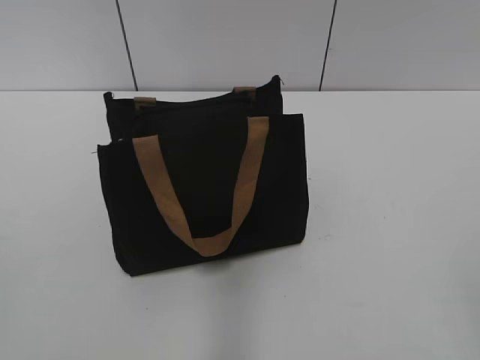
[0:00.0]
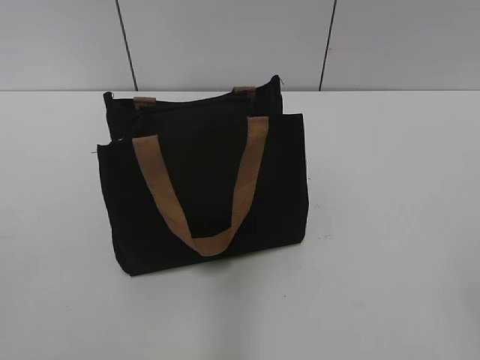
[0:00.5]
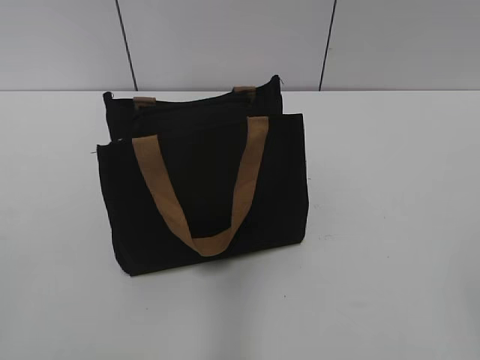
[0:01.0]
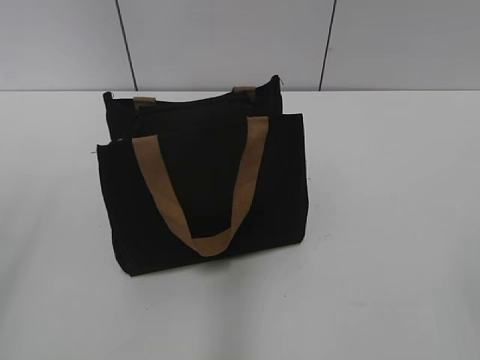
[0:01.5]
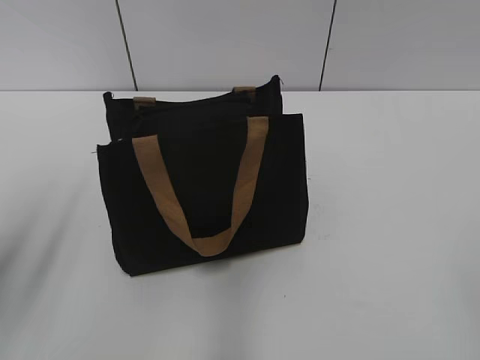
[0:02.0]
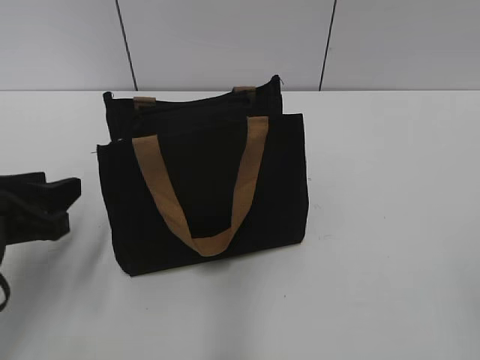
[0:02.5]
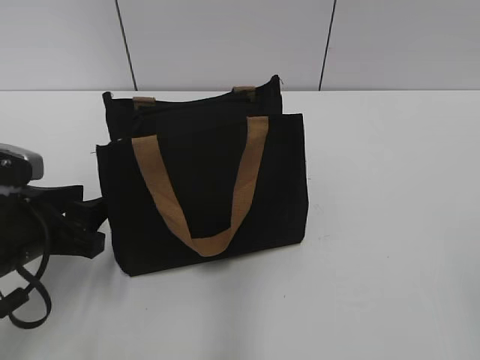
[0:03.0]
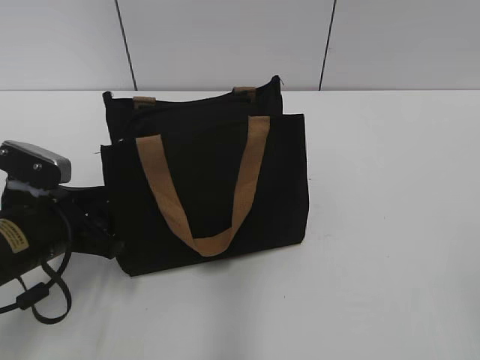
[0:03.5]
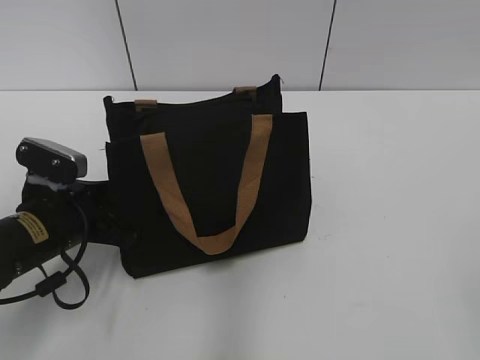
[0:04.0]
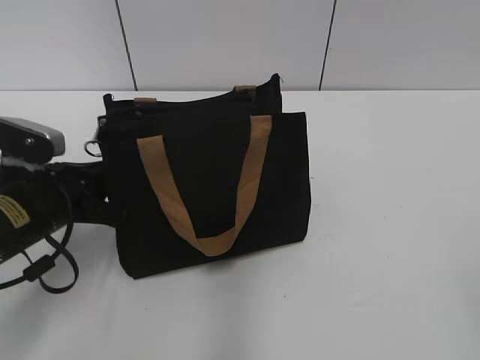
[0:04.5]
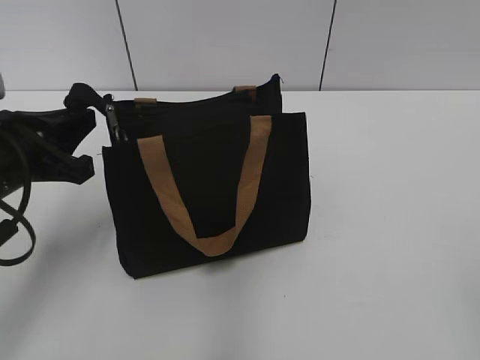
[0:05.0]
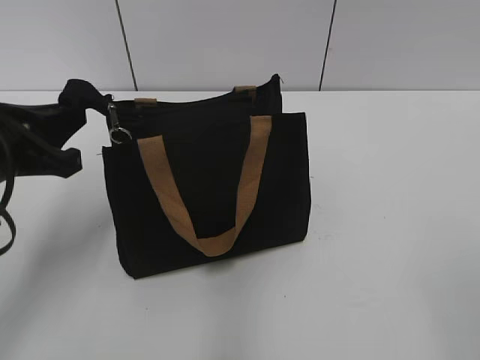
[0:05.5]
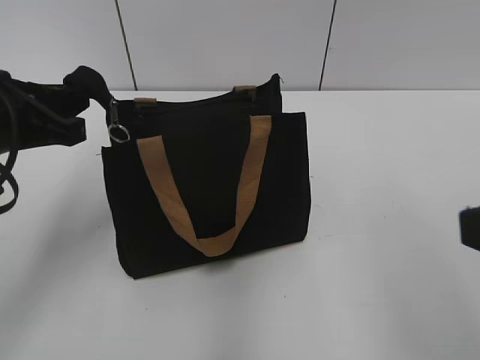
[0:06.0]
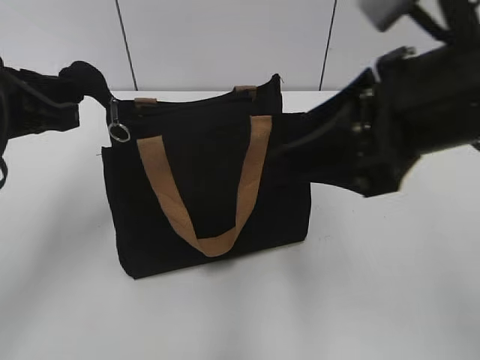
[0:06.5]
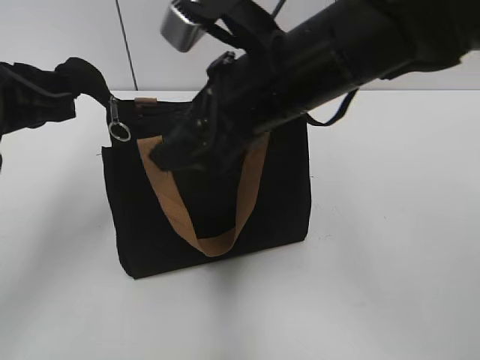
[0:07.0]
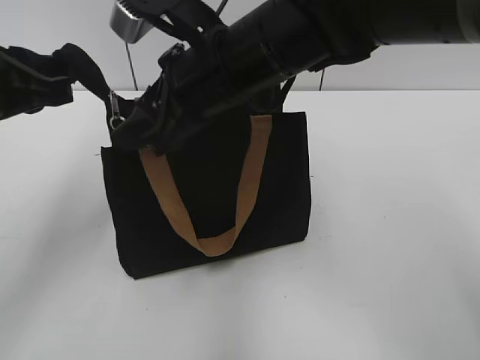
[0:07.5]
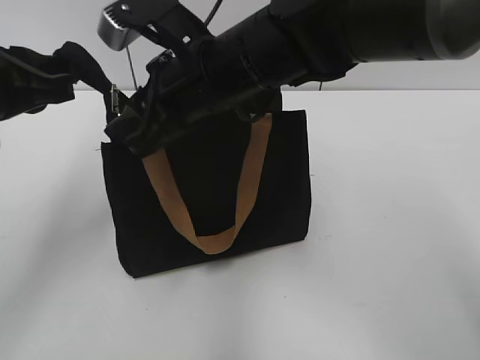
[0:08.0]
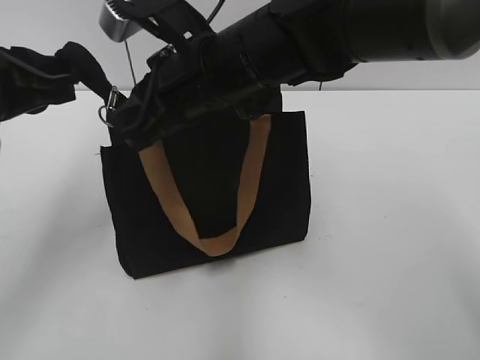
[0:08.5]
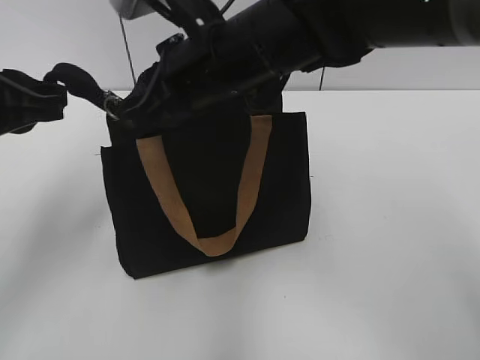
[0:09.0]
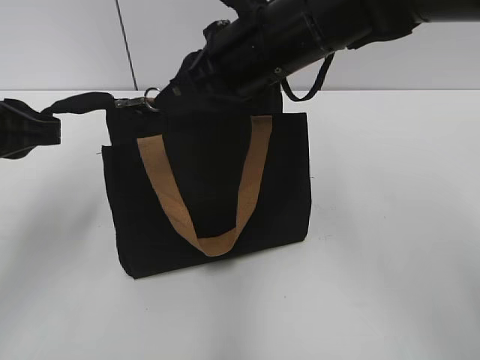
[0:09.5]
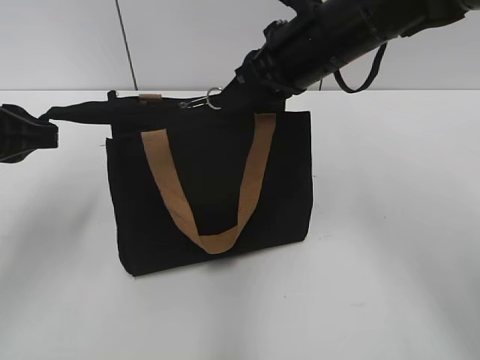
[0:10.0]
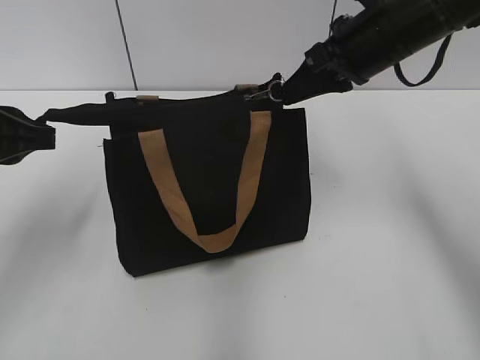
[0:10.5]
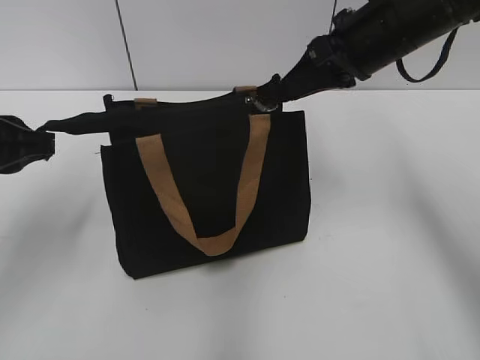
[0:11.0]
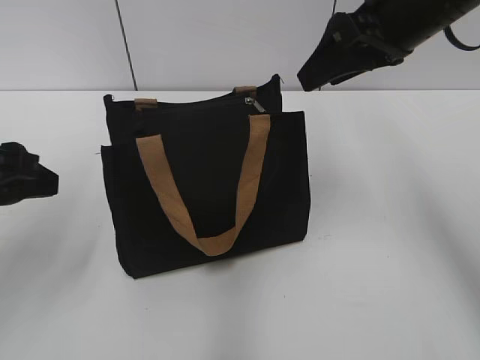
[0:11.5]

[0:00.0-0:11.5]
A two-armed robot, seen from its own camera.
Step, 0:00.0 to 0:10.5: Zip up the bag with your right hand.
0:02.0 to 0:04.0: The left gripper moves downward, forward and to the right, roughly 20 cm.
0:04.0 to 0:06.0: The left gripper heads upward, covering about 15 cm, and closes up, while the right gripper heads forward, covering approximately 10 cm.
0:06.0 to 0:07.5: The right gripper shifts some 35 cm forward and to the left.
0:07.5 to 0:09.5: The right gripper closes up.
0:09.5 to 0:11.5: The left gripper opens up, while the right gripper travels to the right by about 15 cm, and opens its fingers.

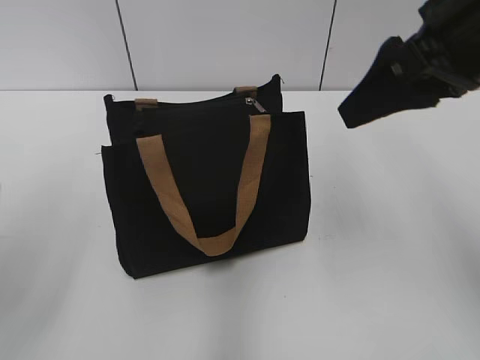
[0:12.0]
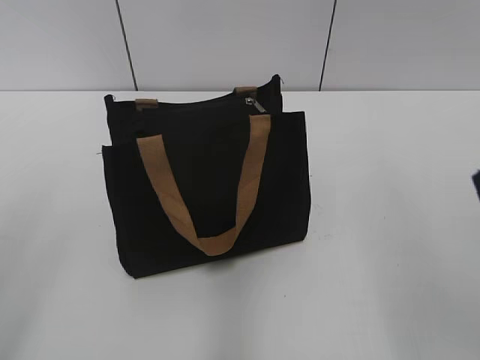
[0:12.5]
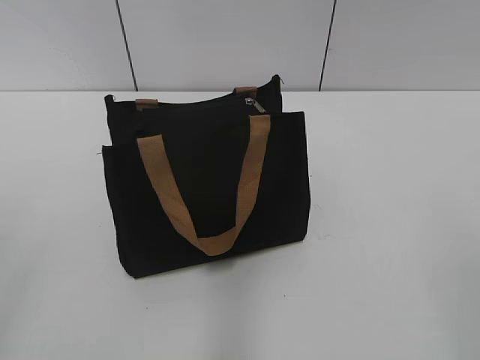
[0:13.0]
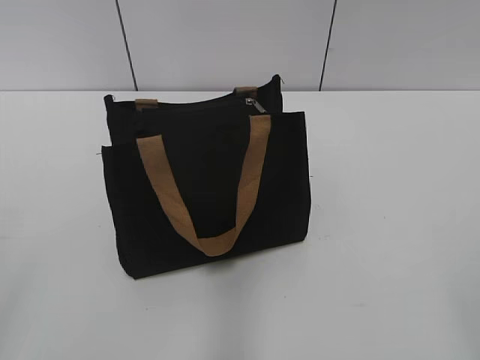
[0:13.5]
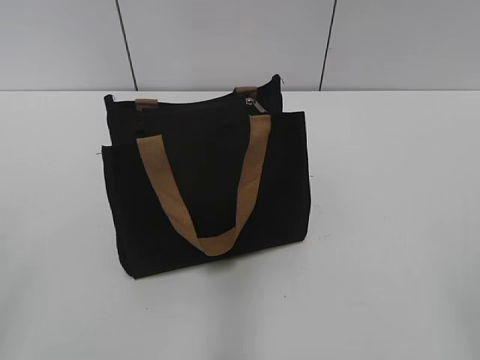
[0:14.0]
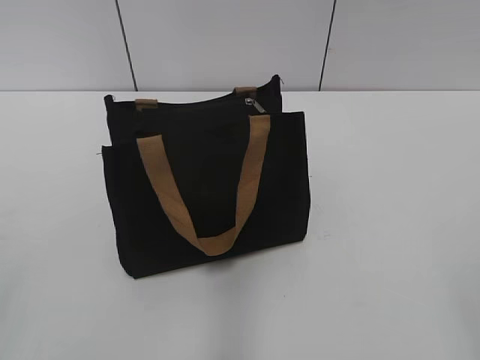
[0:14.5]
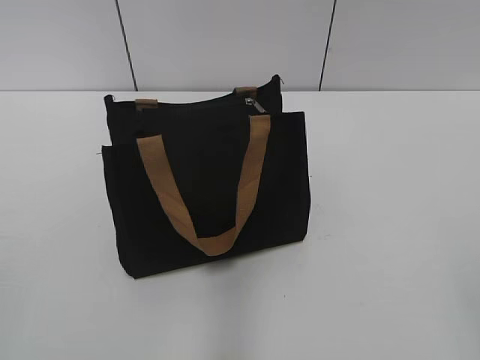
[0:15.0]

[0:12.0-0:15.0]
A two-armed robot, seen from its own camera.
0:12.0 to 0:13.5: The right gripper travels backward by about 30 cm.

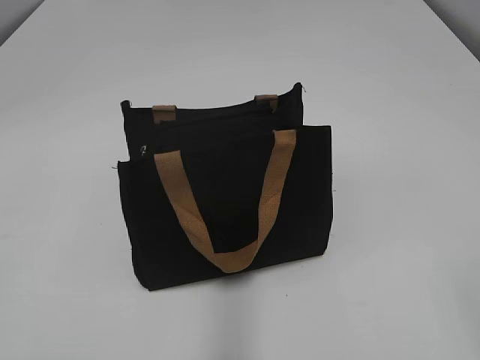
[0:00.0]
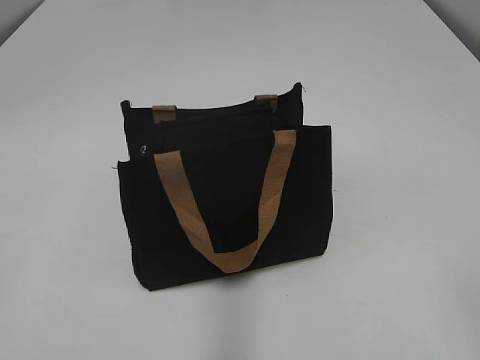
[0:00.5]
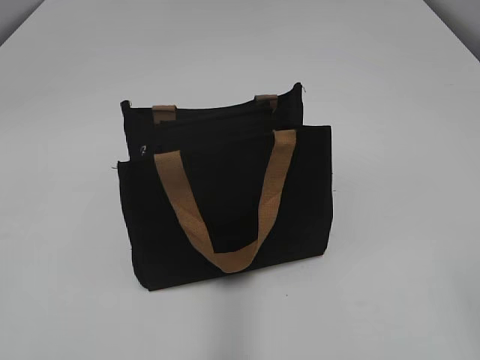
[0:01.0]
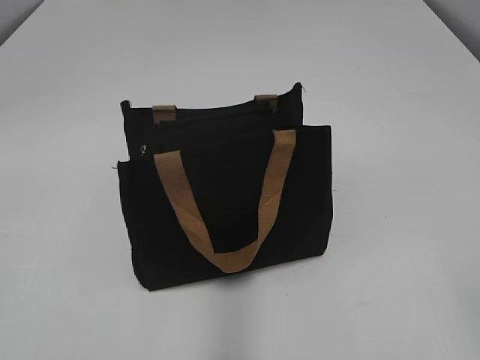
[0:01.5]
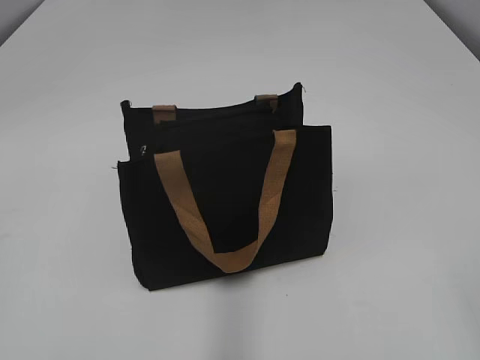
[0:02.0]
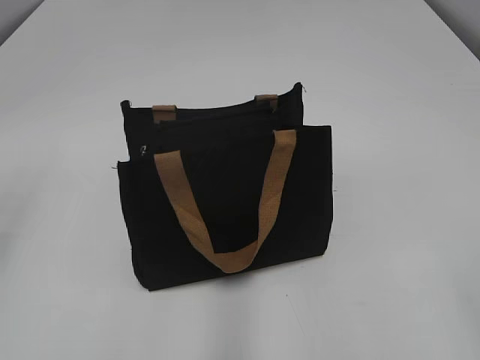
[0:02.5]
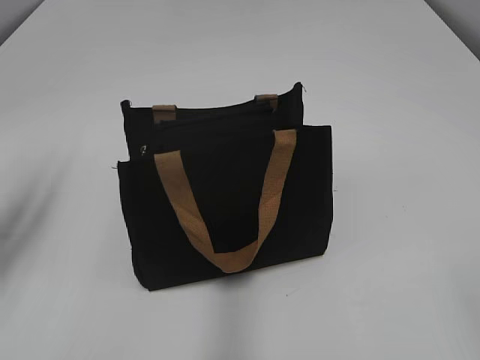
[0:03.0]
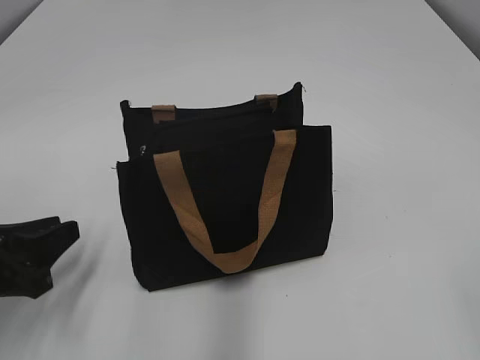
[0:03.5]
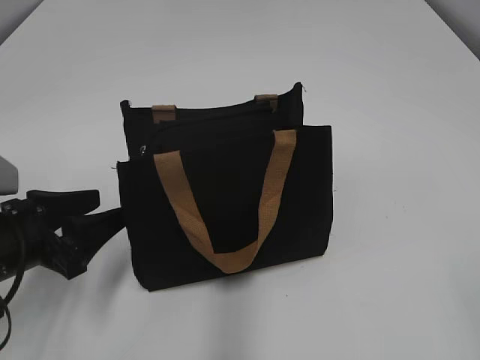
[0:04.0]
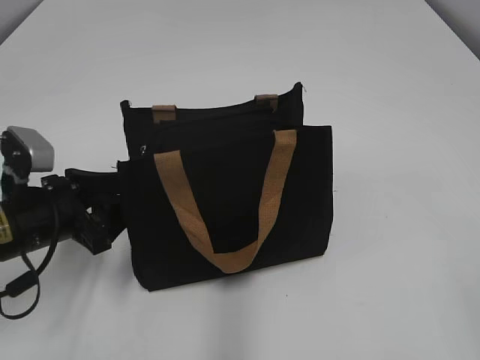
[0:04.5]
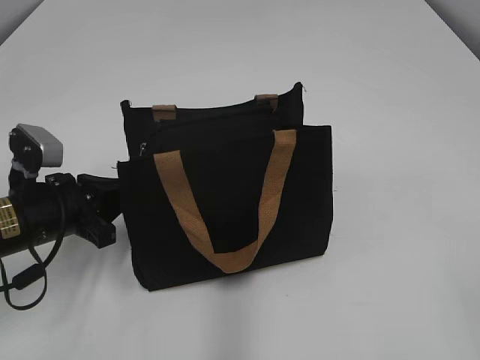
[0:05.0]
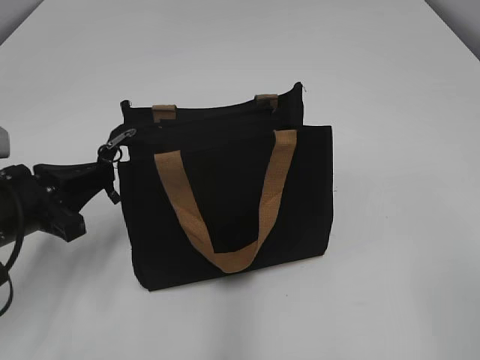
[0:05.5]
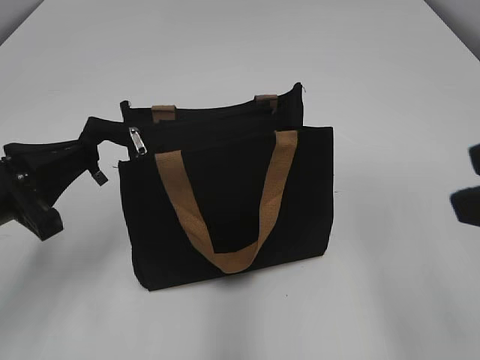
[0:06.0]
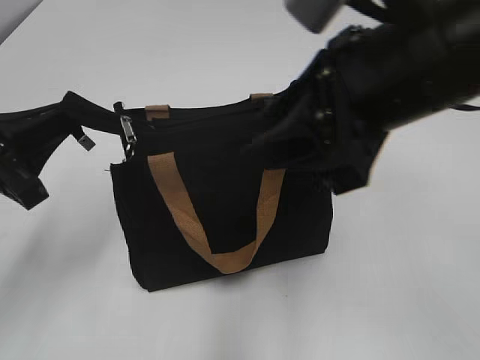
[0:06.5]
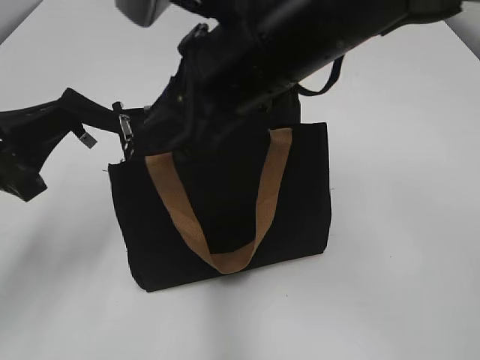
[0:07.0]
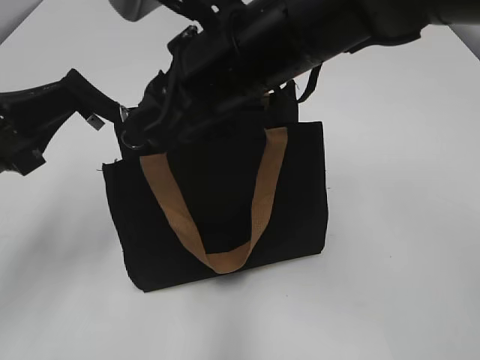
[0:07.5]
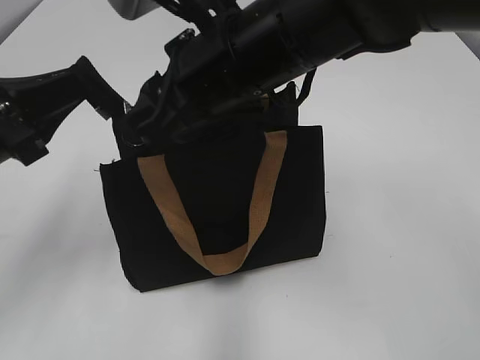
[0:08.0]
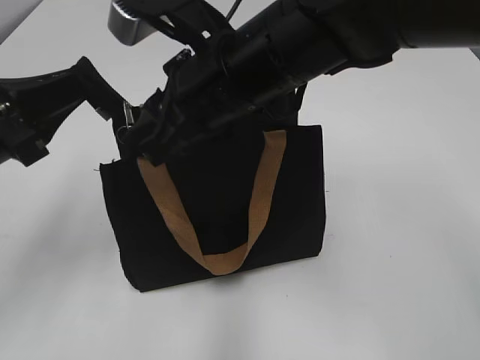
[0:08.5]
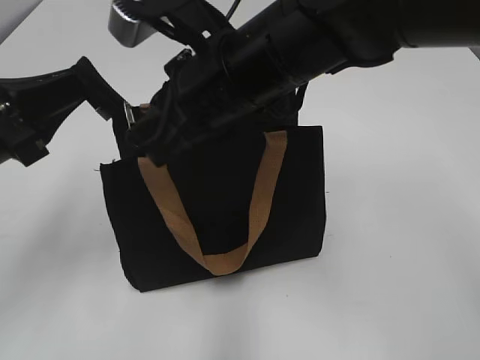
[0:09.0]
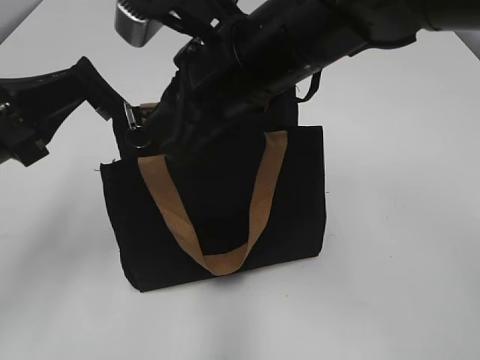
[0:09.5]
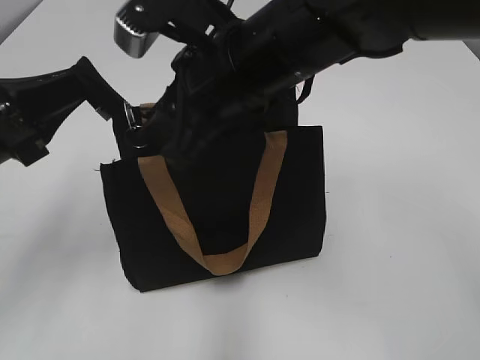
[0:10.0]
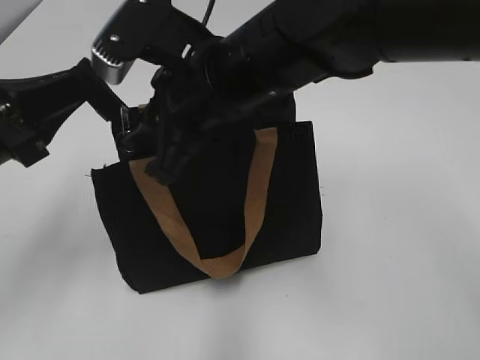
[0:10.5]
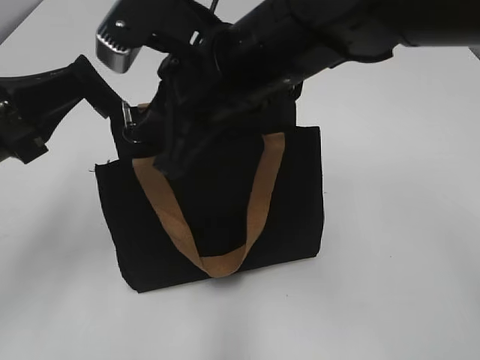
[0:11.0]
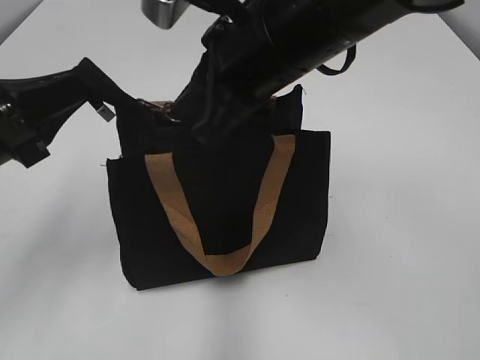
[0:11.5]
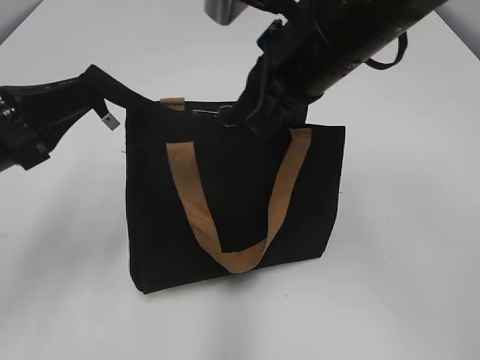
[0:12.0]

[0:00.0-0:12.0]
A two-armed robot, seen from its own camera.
0:02.0 to 0:04.0: The left gripper moves forward, downward and to the right, some 30 cm, and opens up.
0:04.0 to 0:06.0: The left gripper goes approximately 5 cm upward, and closes up, while the right gripper is displaced forward by approximately 10 cm.
0:06.0 to 0:08.0: The right gripper goes about 30 cm to the left and forward.
0:08.0 to 0:10.0: The right gripper closes and opens again.
0:10.0 to 0:12.0: The right gripper goes roughly 5 cm to the right, and closes its fingers.
